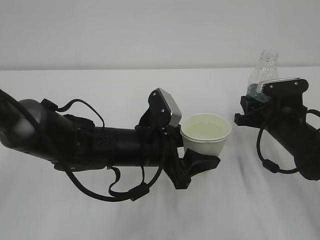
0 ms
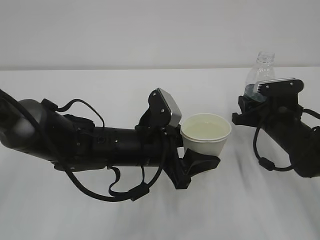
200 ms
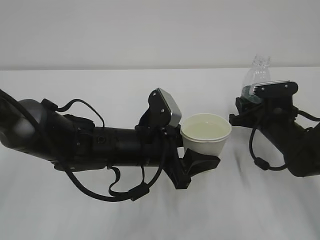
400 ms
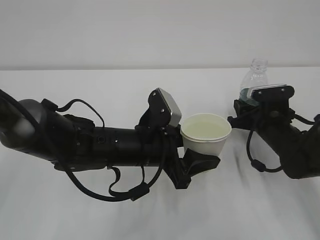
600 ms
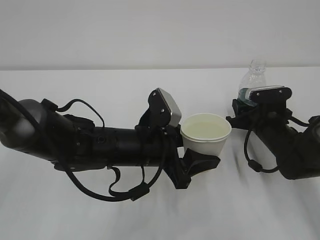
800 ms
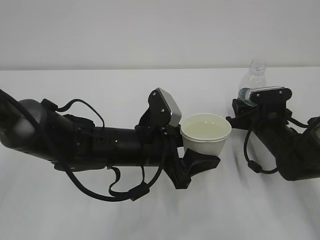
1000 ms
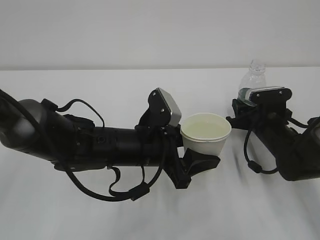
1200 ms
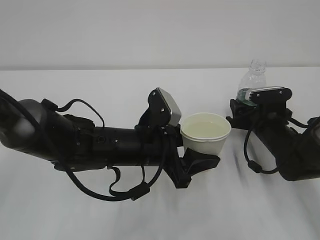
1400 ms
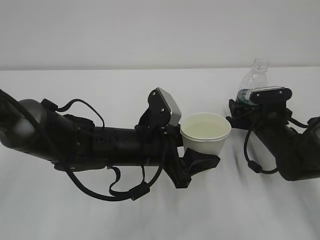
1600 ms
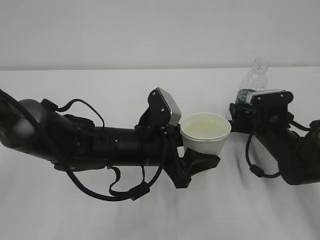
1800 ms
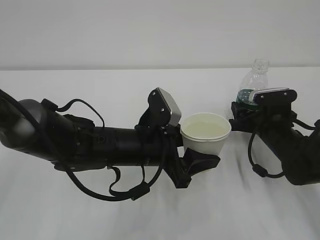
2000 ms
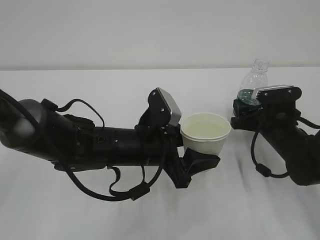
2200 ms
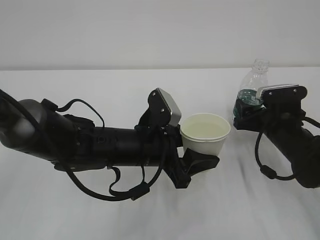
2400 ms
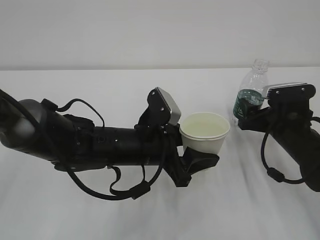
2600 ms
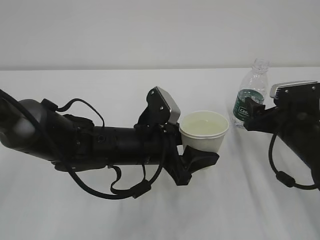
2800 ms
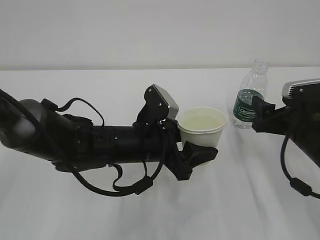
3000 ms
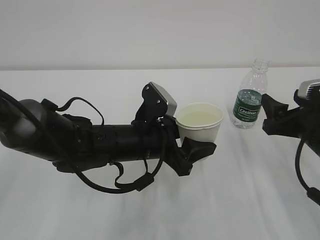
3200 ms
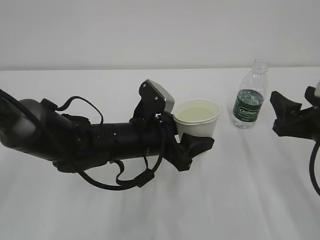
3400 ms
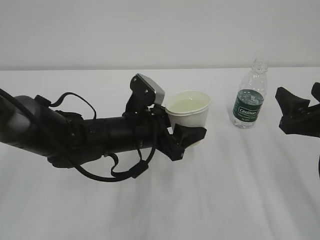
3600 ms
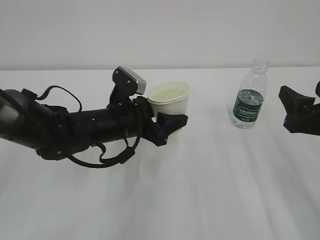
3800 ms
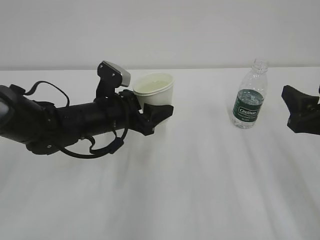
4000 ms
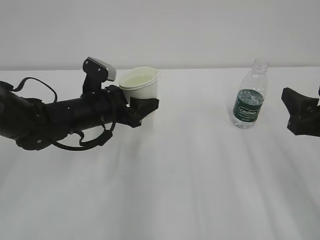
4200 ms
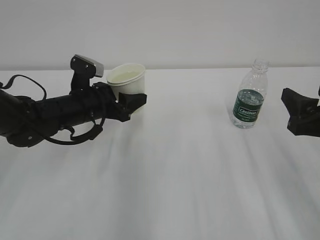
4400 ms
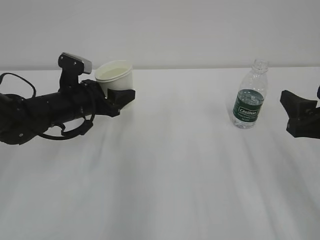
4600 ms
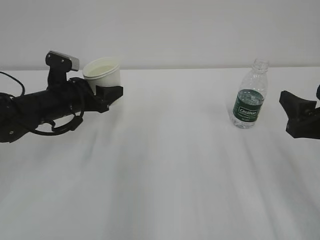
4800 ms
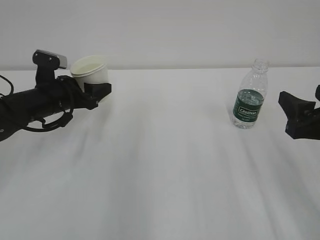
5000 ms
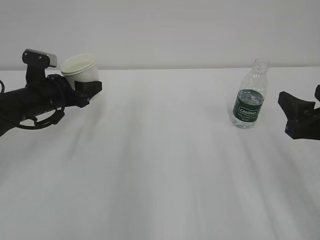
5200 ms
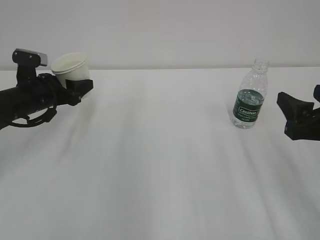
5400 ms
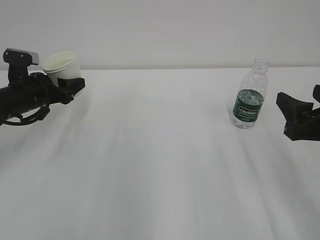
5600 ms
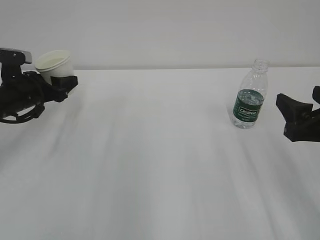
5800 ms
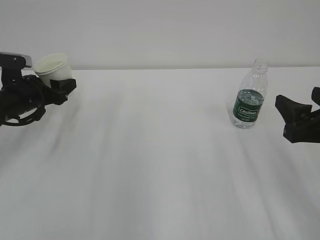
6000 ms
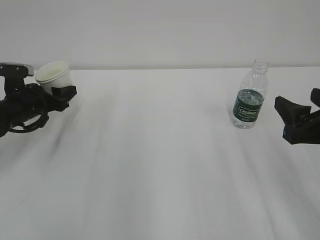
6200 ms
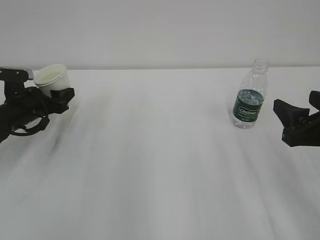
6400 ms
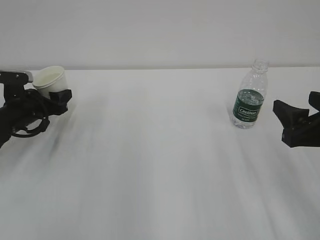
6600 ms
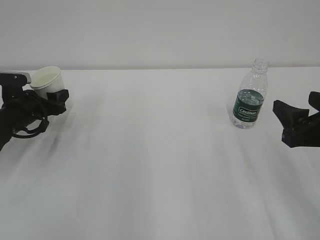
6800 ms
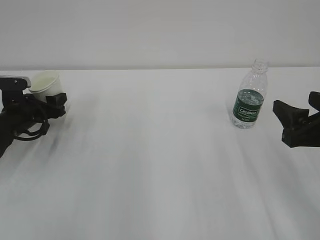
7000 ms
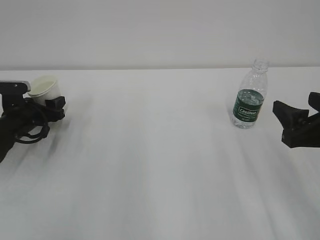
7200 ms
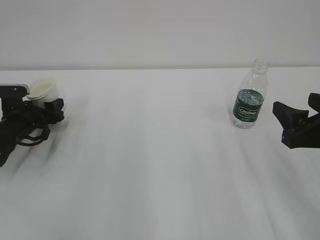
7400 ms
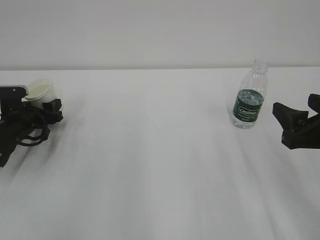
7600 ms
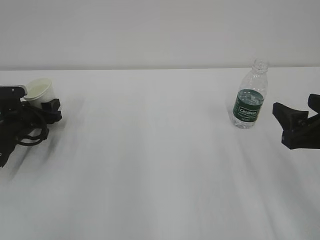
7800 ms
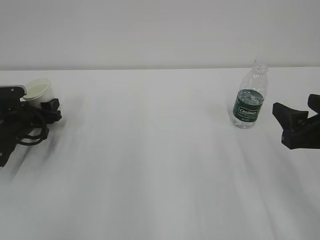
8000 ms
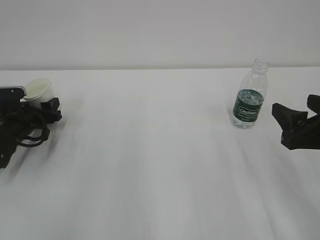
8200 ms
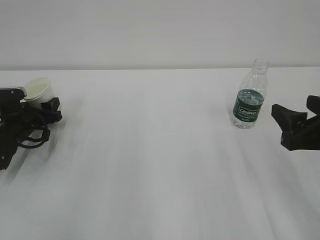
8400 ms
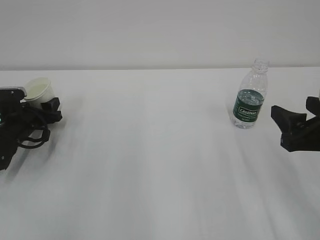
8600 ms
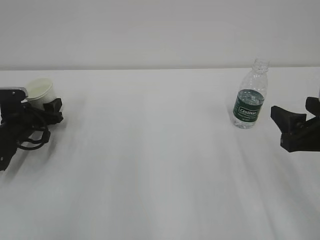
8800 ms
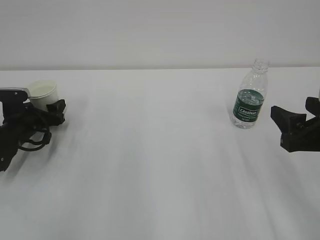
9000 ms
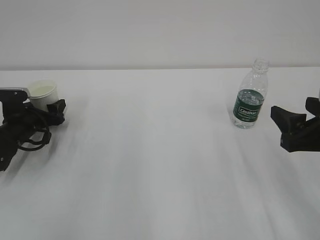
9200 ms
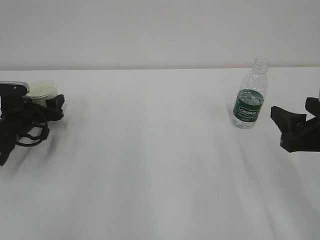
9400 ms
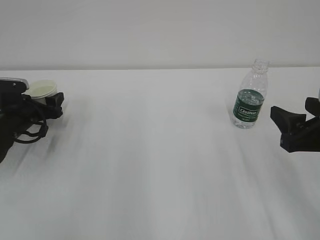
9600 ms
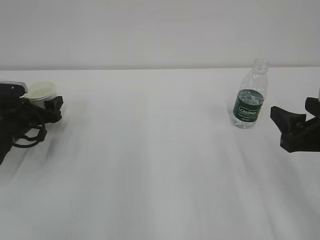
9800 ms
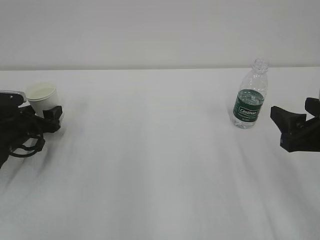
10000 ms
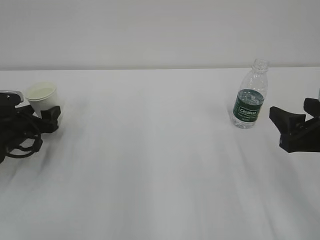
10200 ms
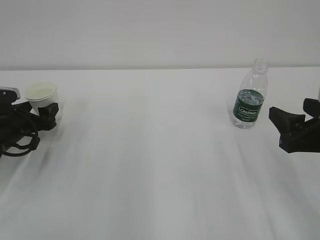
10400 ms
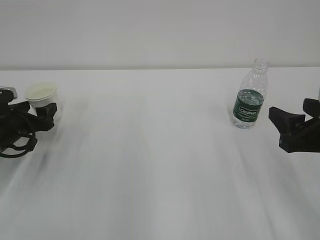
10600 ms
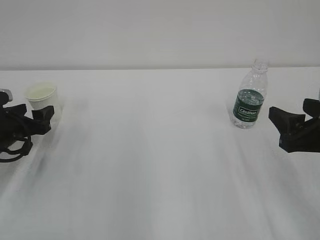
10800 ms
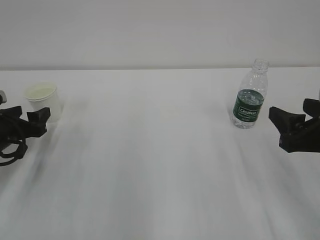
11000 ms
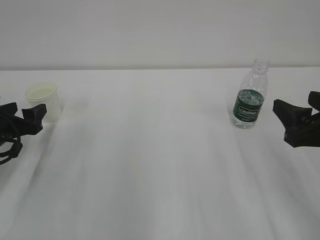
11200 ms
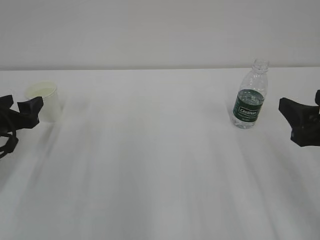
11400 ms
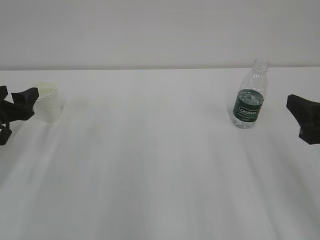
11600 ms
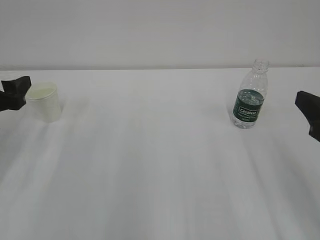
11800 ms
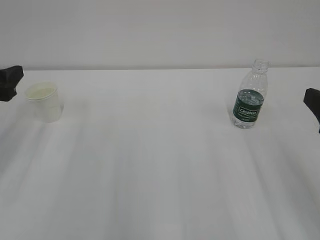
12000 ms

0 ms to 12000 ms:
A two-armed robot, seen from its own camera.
0 ms to 1600 ms: The right gripper ends up approximately 5 cm from where it was, and opens.
1600 ms to 3000 ms: The right gripper shifts roughly 10 cm backward and upward.
3000 ms to 4400 ms: The left gripper travels to the left and forward by about 15 cm. The right gripper is displaced backward and upward by roughly 10 cm.
4400 ms to 6000 ms: The left gripper goes some 15 cm to the left.
6000 ms to 7600 ms: The left gripper moves downward, approximately 10 cm.
7600 ms to 9000 ms: The left gripper opens up.
9000 ms to 10400 ms: There are only small adjustments of the grippers.
10400 ms to 12000 ms: The right gripper travels upward by some 5 cm. The left gripper is displaced upward and backward by roughly 15 cm.
